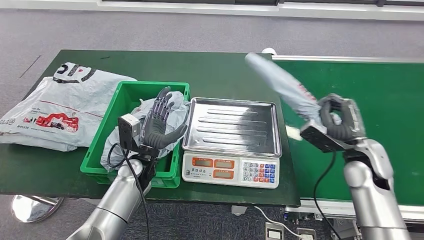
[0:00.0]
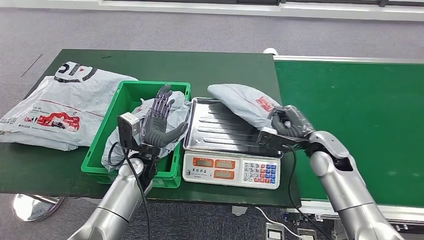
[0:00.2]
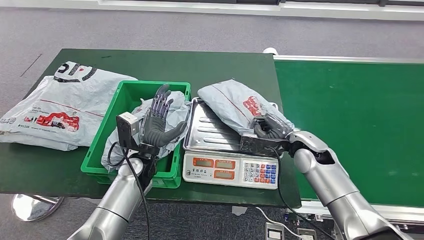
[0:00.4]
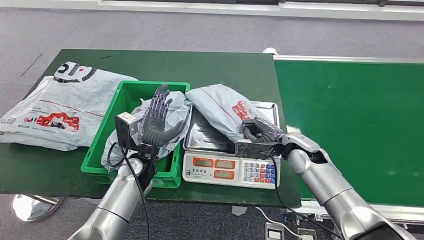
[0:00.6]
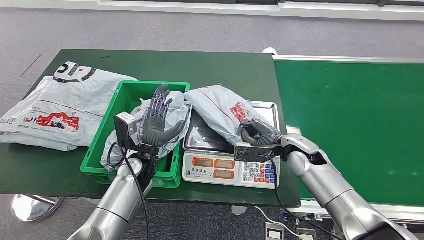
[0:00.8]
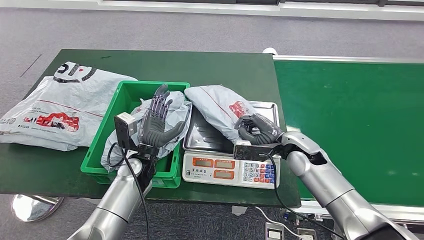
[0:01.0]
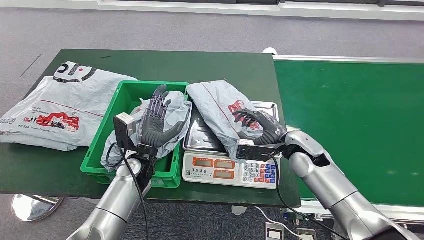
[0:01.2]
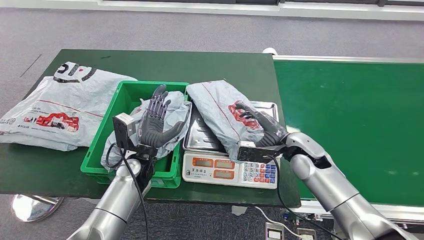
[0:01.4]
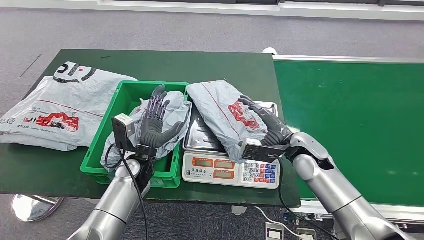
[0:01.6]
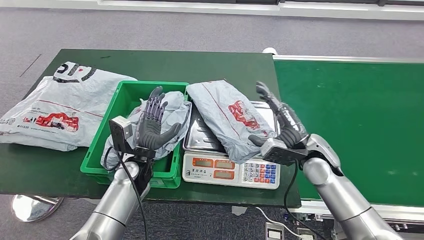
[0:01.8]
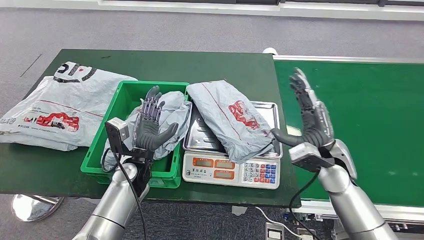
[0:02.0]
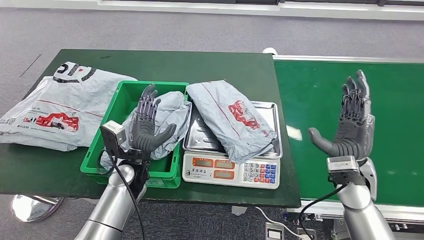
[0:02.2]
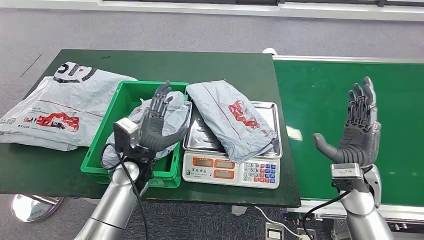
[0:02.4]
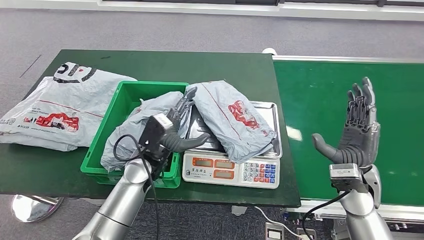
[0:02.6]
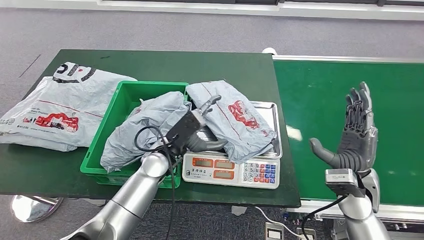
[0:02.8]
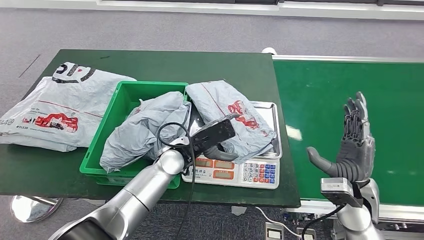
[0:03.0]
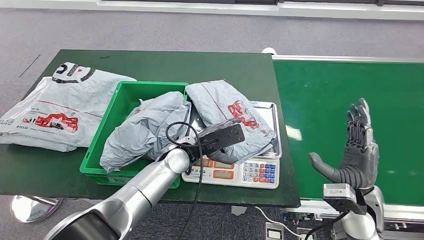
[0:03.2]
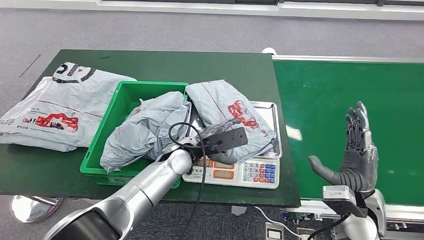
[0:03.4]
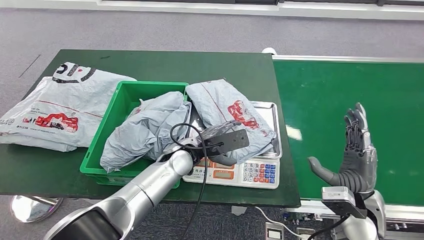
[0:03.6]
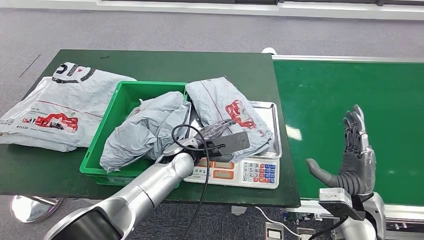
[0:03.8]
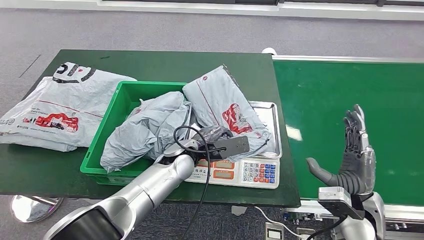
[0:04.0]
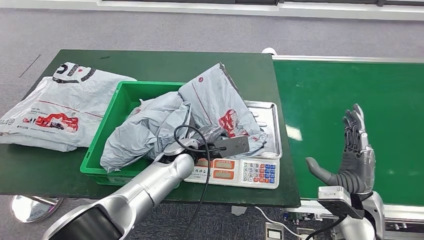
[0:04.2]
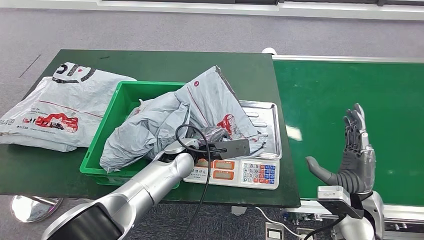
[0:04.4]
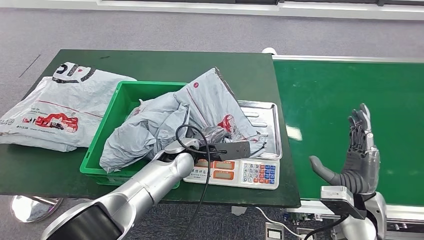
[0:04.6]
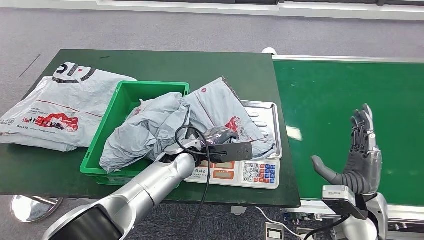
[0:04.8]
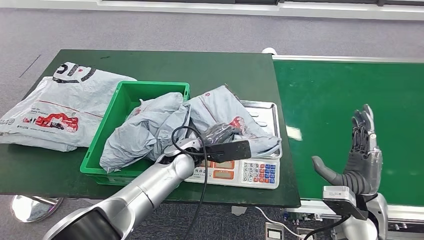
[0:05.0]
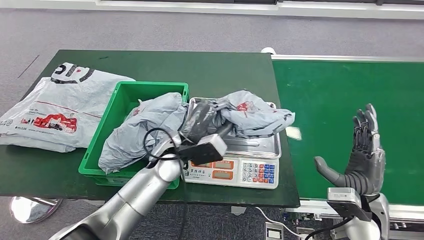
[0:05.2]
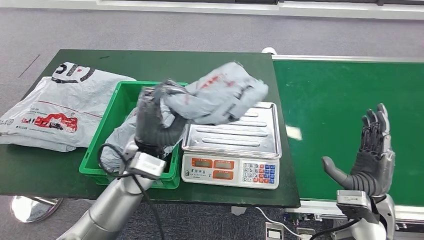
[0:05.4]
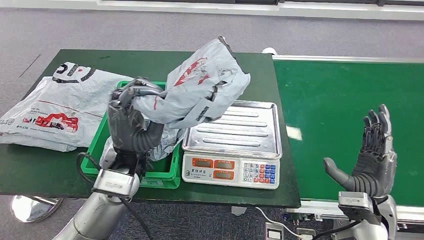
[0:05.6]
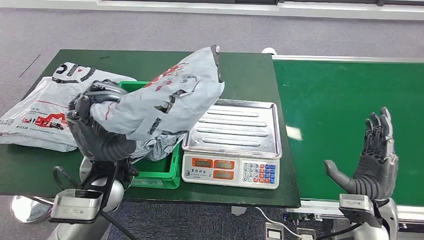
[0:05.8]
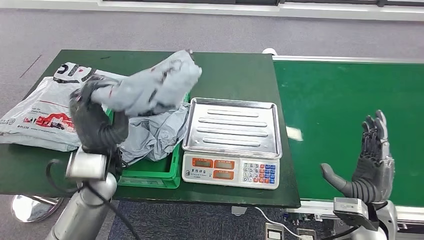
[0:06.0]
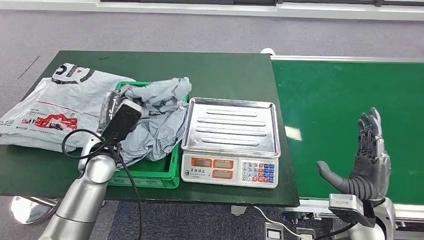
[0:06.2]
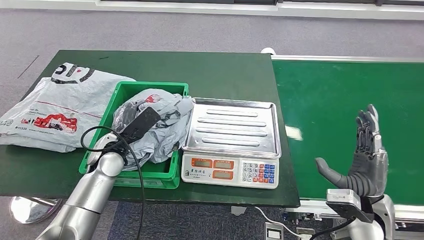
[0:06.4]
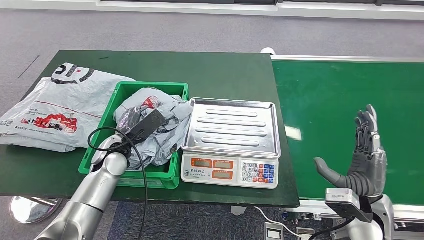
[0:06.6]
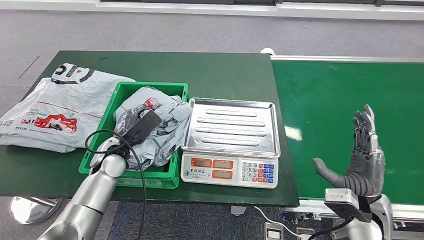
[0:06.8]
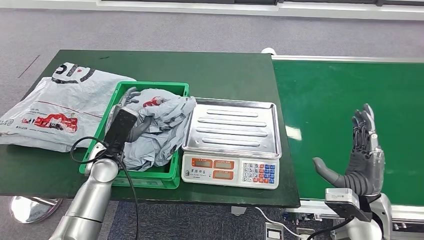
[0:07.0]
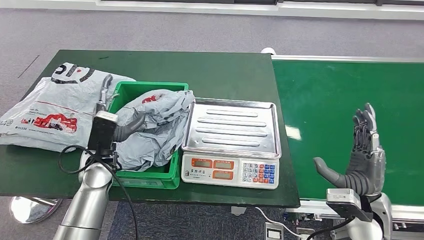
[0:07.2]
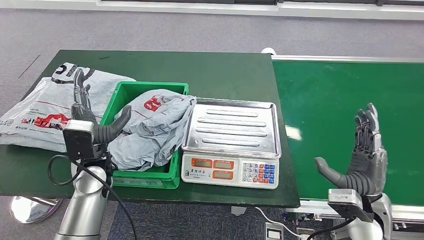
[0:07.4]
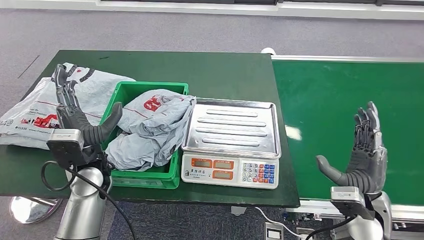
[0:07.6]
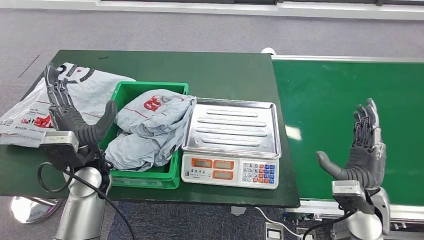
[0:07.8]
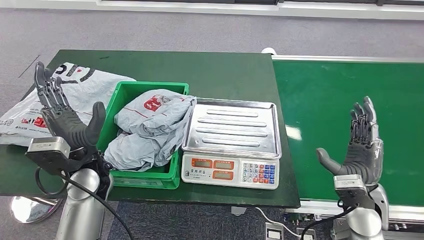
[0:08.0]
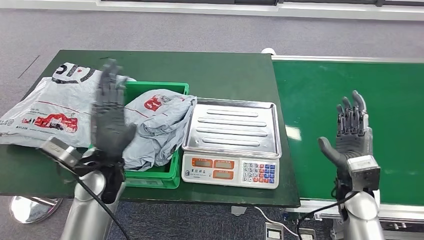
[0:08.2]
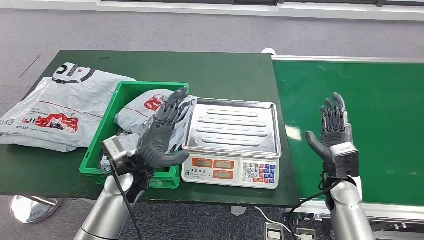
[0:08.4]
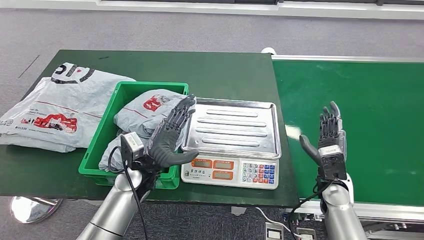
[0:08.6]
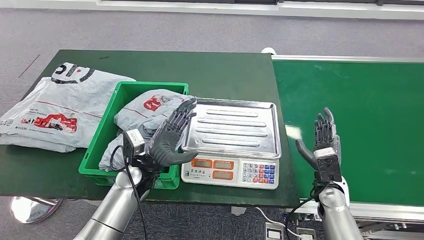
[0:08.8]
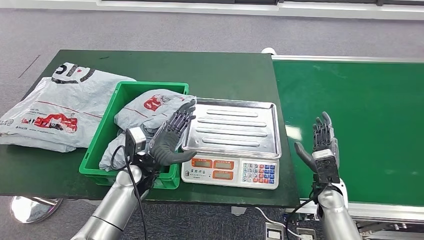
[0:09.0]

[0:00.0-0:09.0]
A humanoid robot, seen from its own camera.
Step, 0:00.4 to 0:02.6: Place the parcel onto the inbound machine.
Step, 0:02.8 to 0:05.6: Pick up the parcel from the inbound machine.
Step, 0:05.8 to 0:09.0: Place the parcel into the delivery box.
0:01.6 to 0:03.0: The right hand is displaced backward and to the right by approximately 15 cm. The left hand moves to the right, approximately 10 cm.
0:07.6 to 0:09.0: The left hand moves to the right and downward, some 10 cm. Meanwhile the right hand moves downward and forward, roughly 10 cm.
